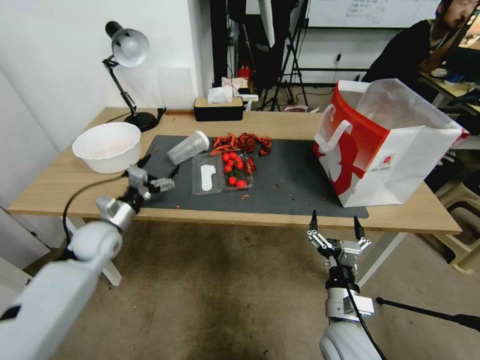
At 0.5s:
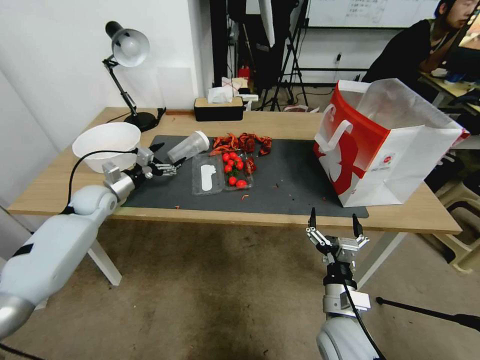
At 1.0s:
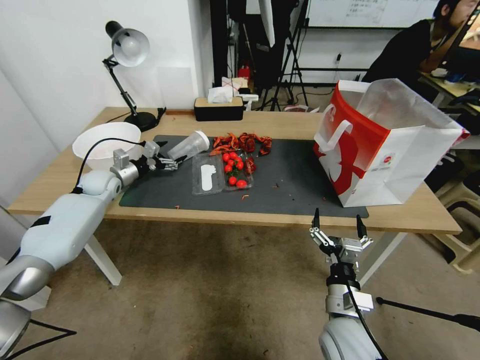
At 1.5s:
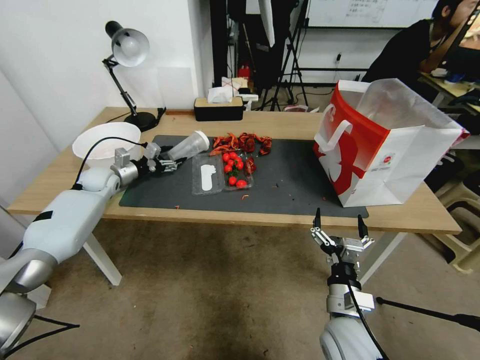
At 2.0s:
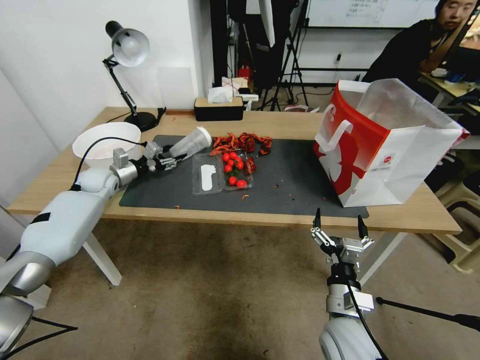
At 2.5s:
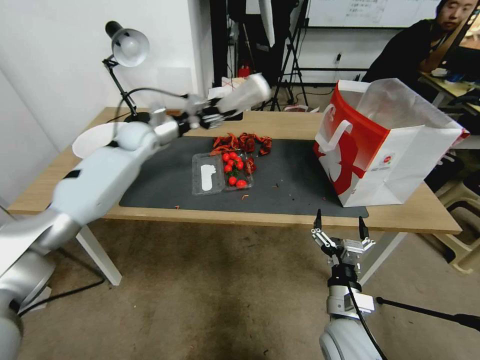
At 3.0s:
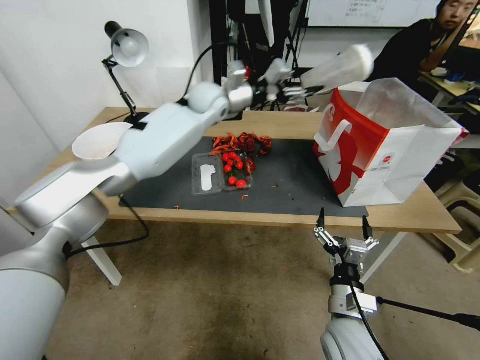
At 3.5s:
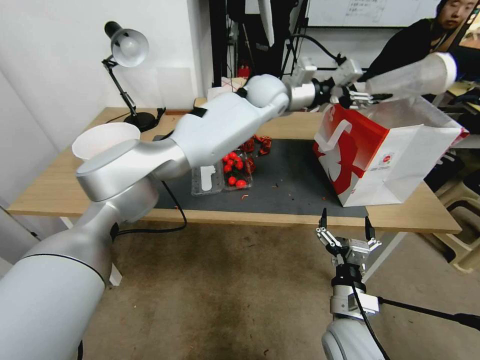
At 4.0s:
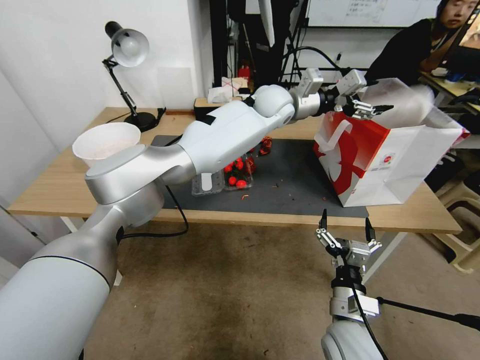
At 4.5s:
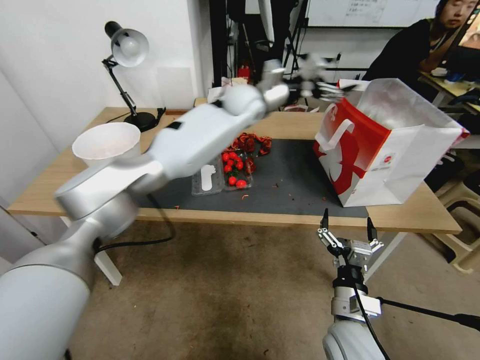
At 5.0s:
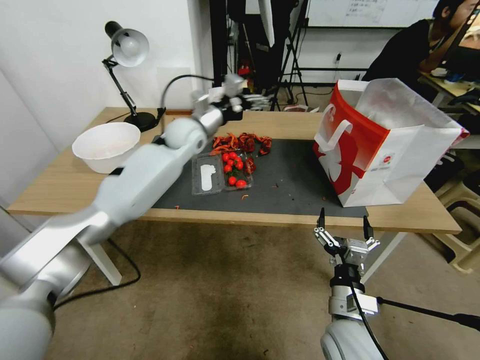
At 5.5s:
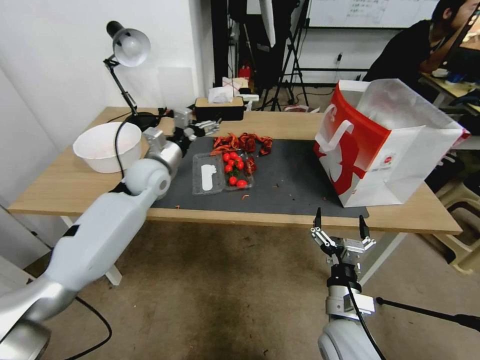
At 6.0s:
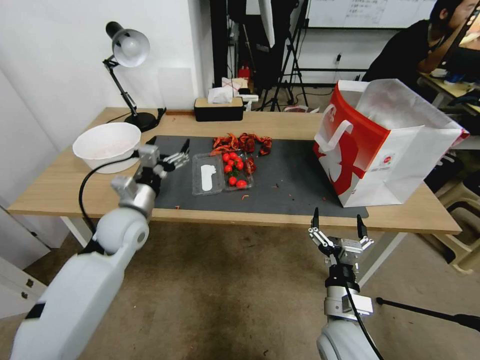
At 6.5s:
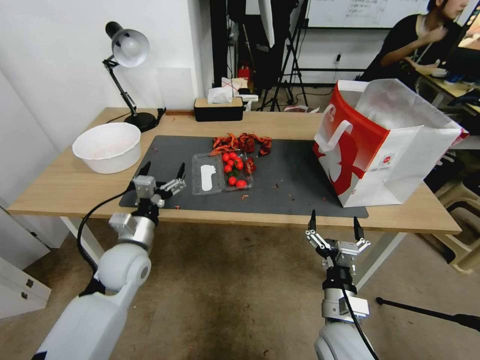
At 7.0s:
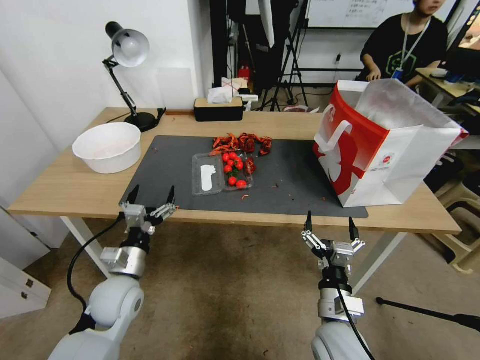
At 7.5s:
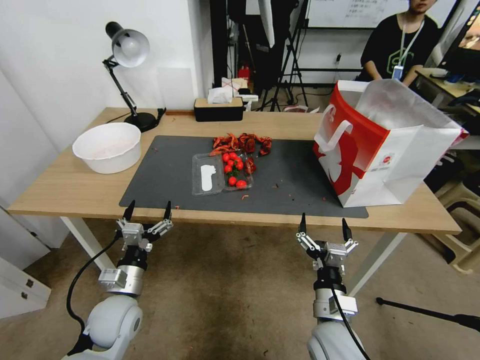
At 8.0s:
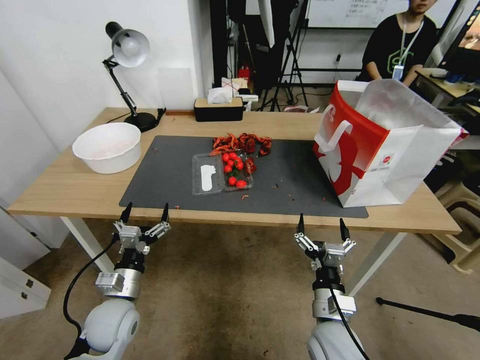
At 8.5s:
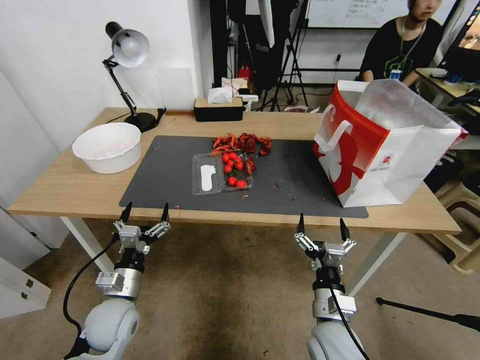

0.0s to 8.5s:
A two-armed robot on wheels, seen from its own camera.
0.0s to 2.0s: The left gripper travels forward by some 15 cm, and closes up.
2.0s to 4.0s: The left gripper moves to the right and upward, about 50 cm, and opens.
4.0s to 6.5s: The left gripper travels to the left, backward and downward by roughly 50 cm, and opens up.
6.5s to 8.5s: The left gripper travels backward and downward by about 10 cm.

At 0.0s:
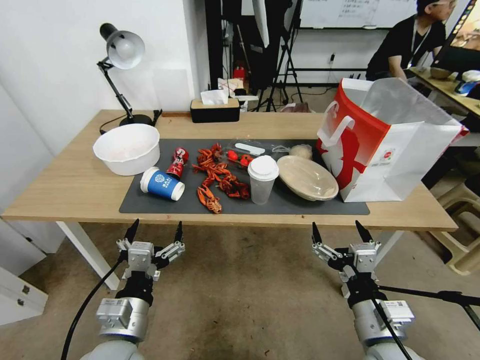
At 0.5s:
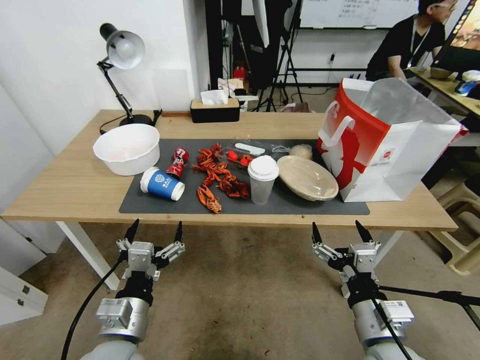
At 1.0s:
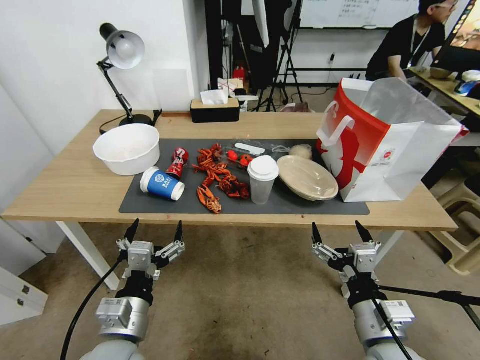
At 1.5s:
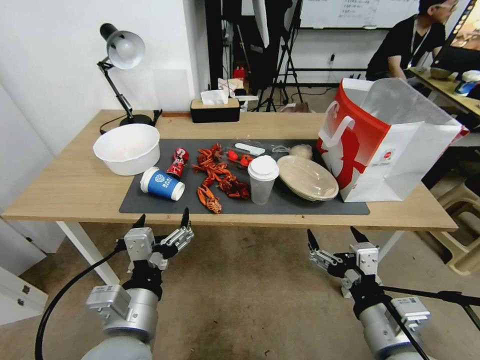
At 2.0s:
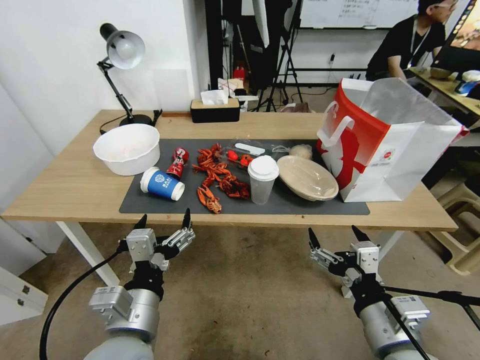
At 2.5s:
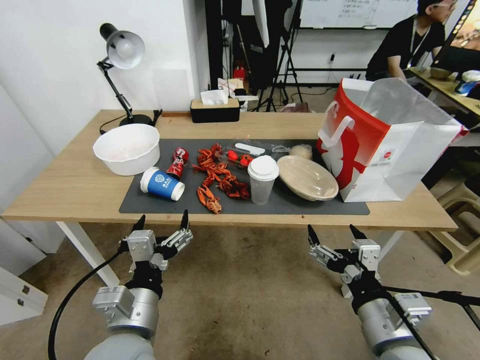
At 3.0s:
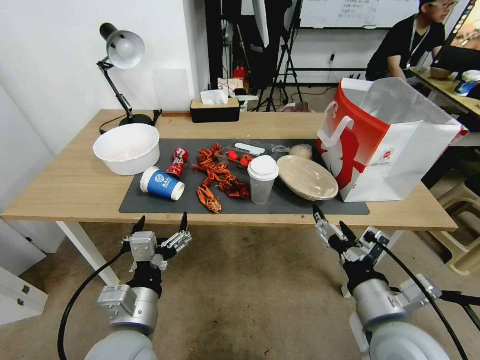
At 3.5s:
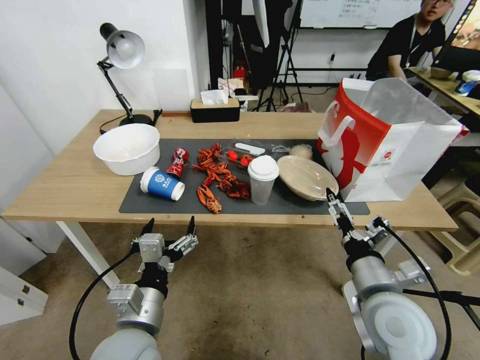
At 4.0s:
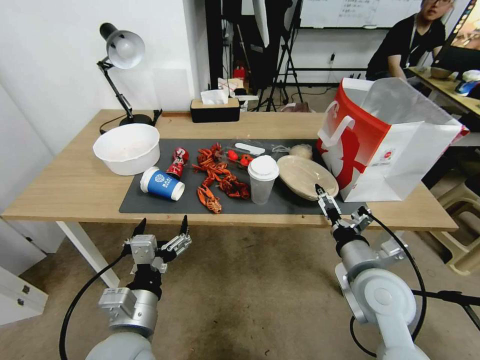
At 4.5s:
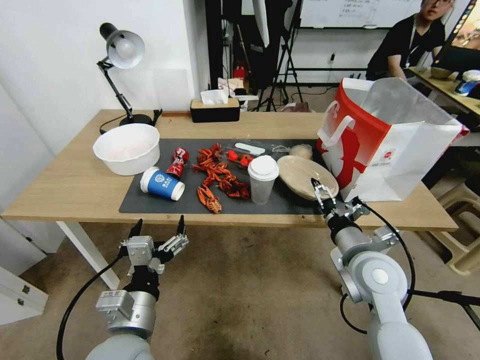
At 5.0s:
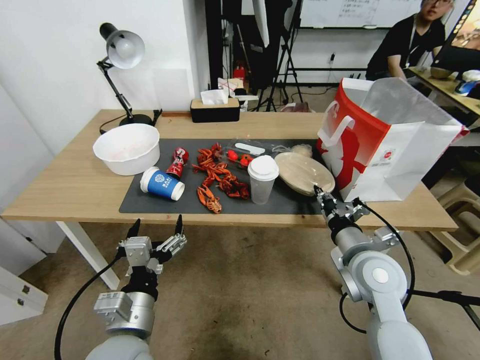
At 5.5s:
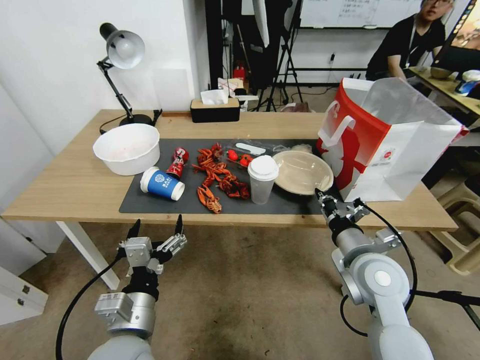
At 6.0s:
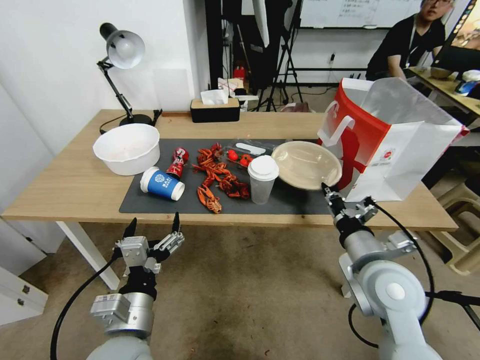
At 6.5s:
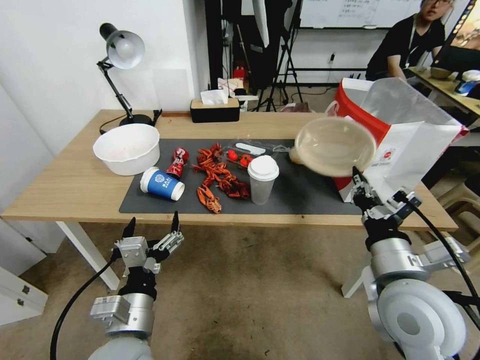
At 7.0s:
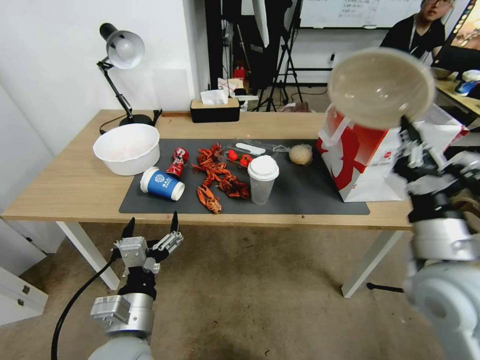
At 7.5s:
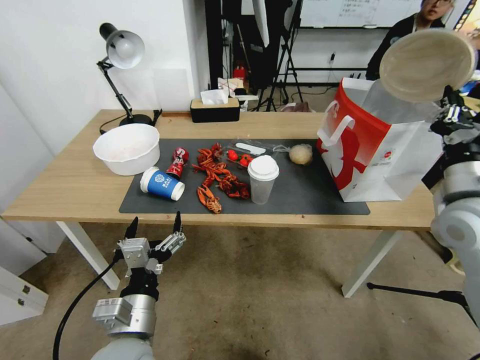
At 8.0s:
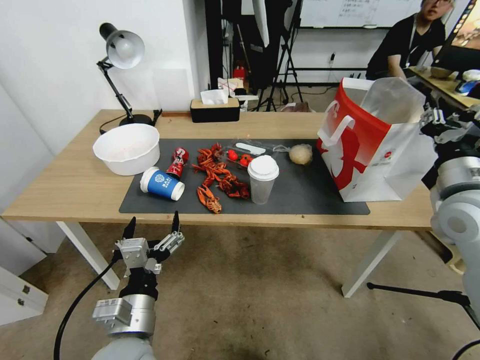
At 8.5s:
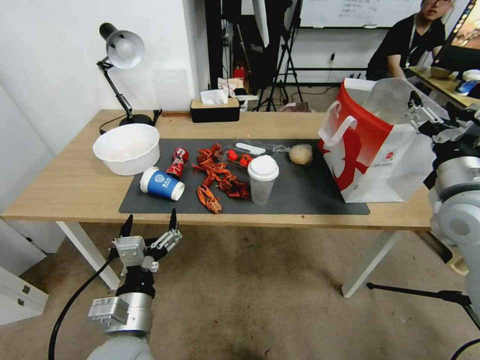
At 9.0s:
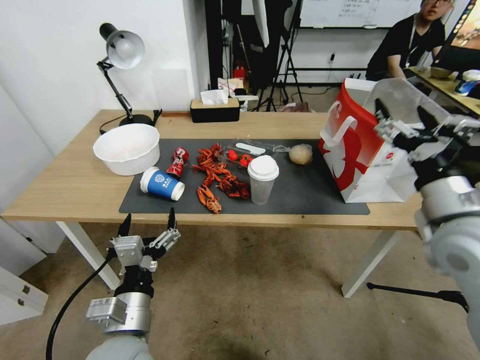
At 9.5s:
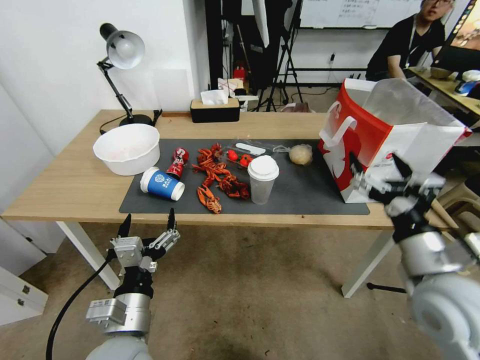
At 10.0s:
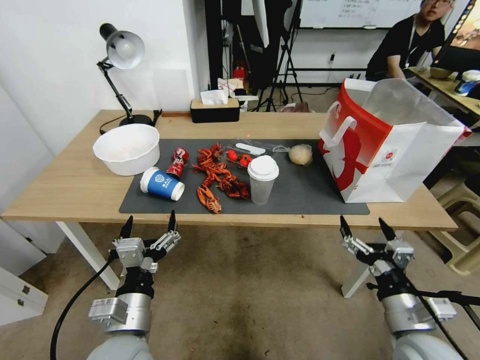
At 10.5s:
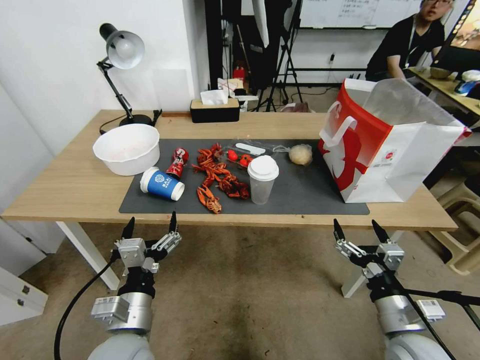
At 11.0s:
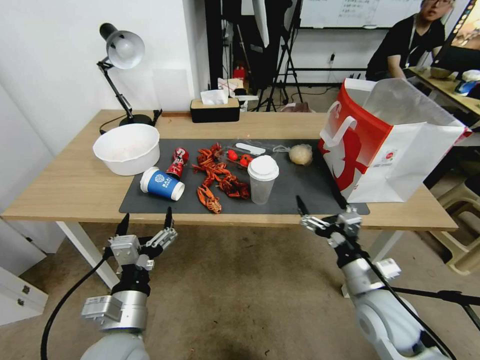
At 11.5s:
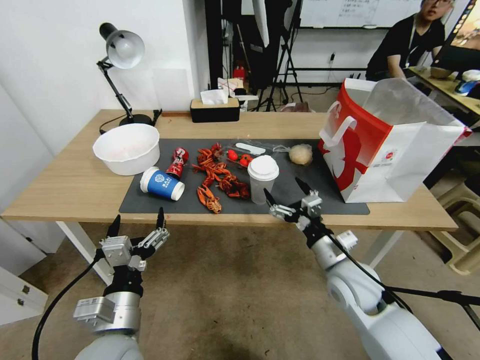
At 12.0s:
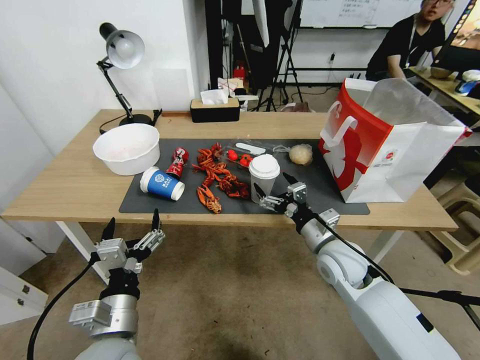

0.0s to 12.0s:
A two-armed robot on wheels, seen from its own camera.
2.0s to 4.0s: The left gripper changes place by roughly 5 cm, while the right gripper heads forward, covering roughly 10 cm.
4.0s to 6.0s: The right gripper closes.
6.0s to 8.0s: The right gripper is displaced to the right, upward and forward by some 20 cm.
8.0s to 10.0s: The right gripper heads downward and backward, covering approximately 25 cm, and opens up.
10.0s to 12.0s: The right gripper goes roughly 20 cm forward and to the left.

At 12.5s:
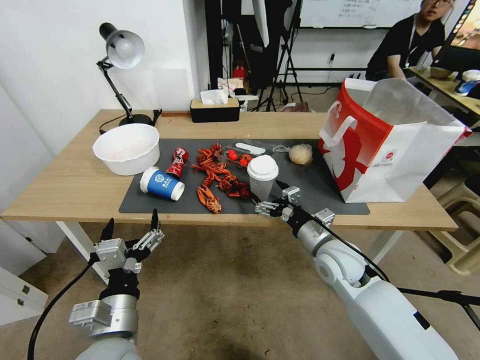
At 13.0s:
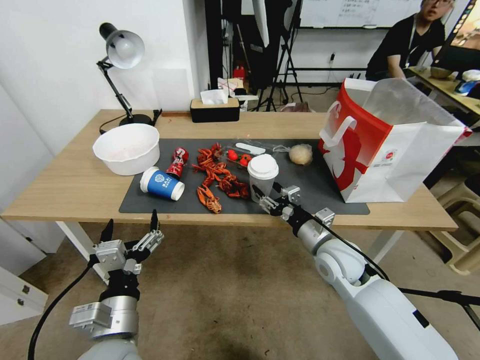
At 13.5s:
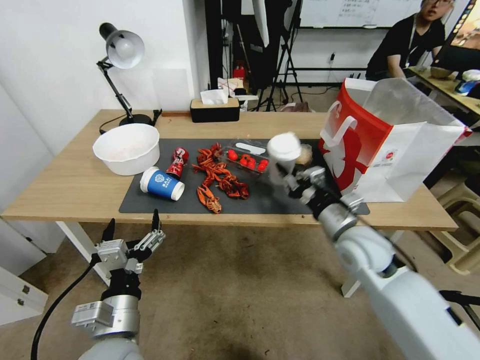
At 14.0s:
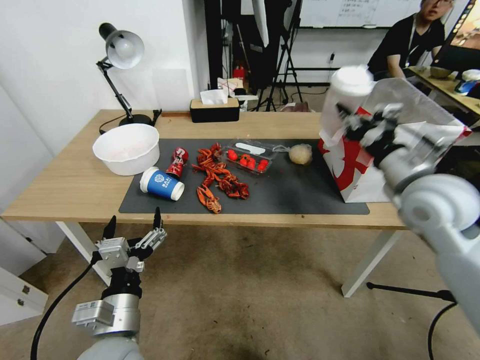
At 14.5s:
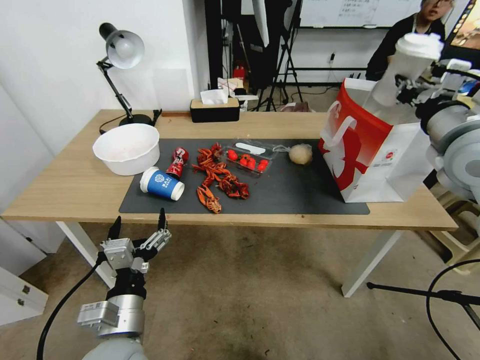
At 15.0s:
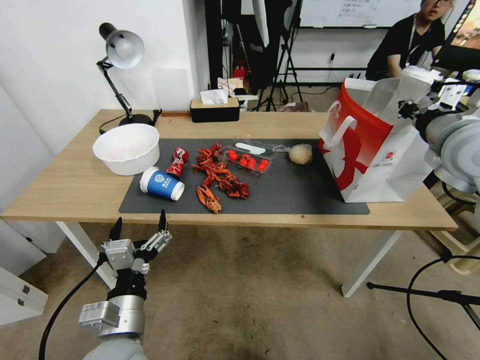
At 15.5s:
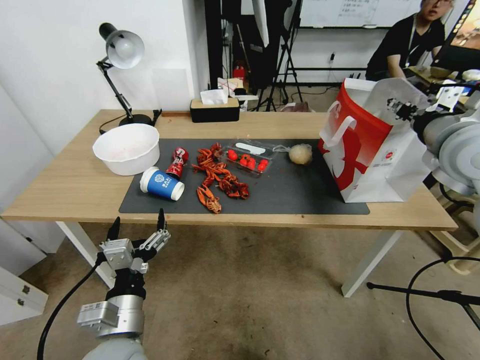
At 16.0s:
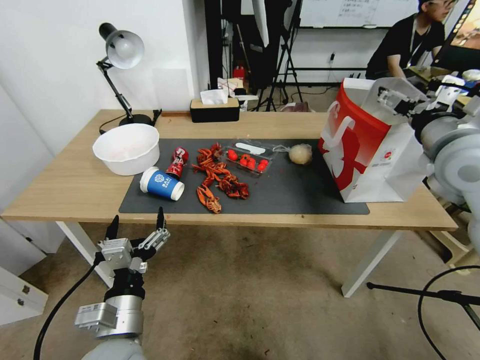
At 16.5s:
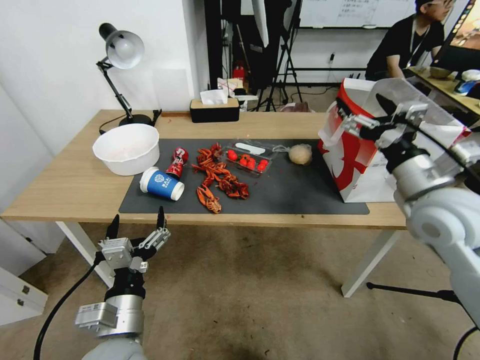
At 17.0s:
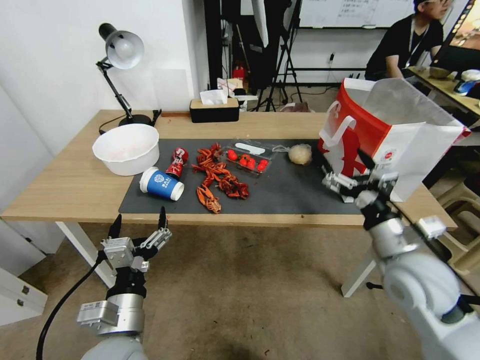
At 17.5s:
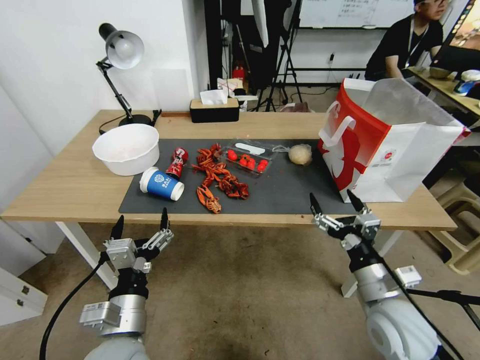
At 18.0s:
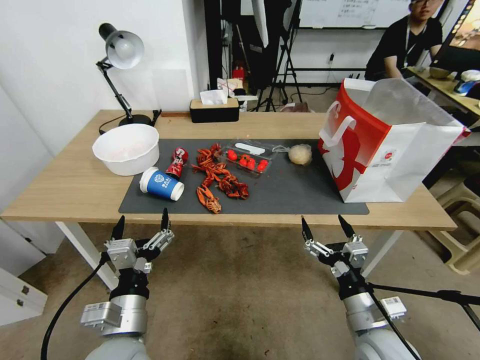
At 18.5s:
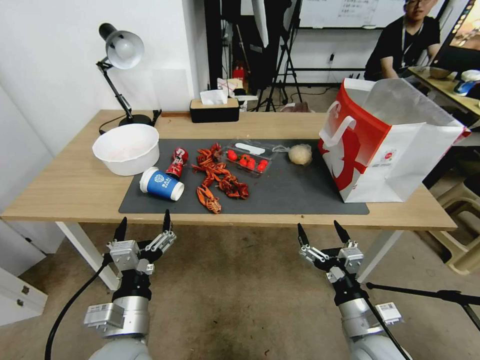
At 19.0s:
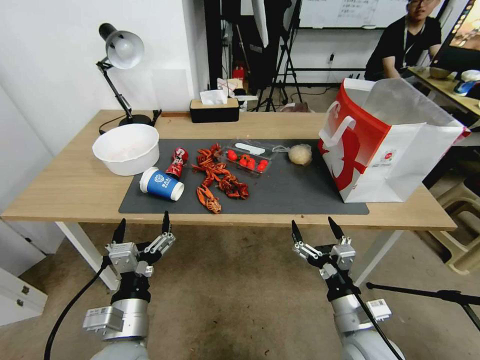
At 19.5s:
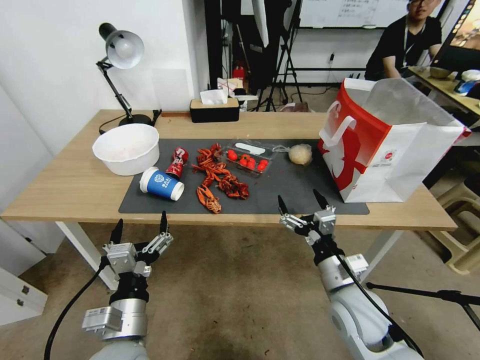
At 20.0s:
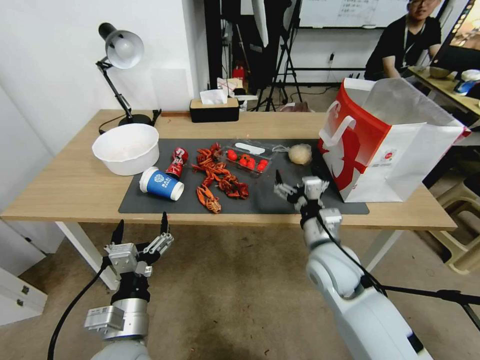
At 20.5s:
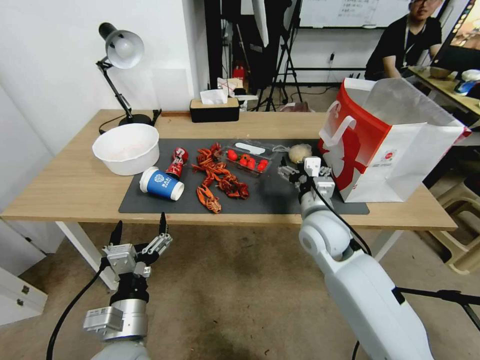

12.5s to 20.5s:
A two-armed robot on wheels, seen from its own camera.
12.5s to 14.5s: The right gripper goes some 30 cm upward and to the right, and closes its fingers.
14.5s to 16.5s: The right gripper shifts some 10 cm downward, and opens up.
16.5s to 18.5s: The right gripper goes approximately 30 cm downward and backward.
18.5s to 20.5s: The right gripper travels forward, upward and to the left by approximately 20 cm.
